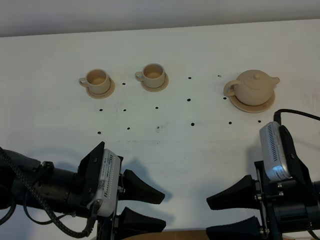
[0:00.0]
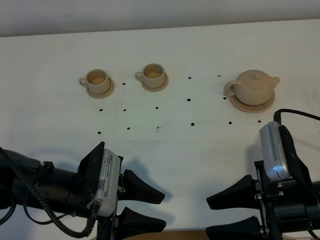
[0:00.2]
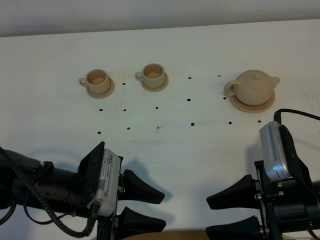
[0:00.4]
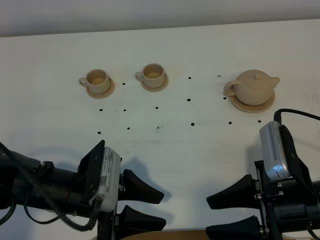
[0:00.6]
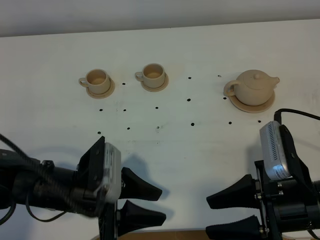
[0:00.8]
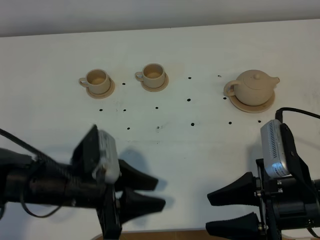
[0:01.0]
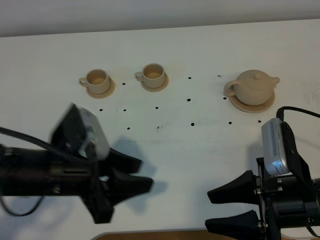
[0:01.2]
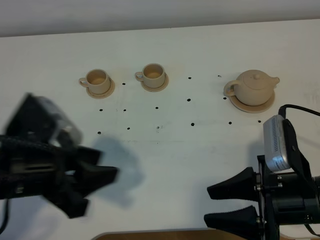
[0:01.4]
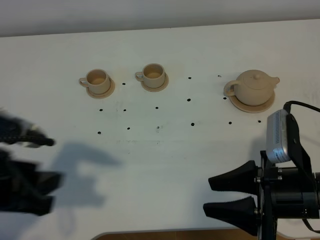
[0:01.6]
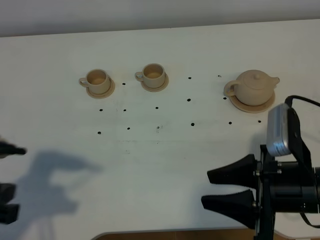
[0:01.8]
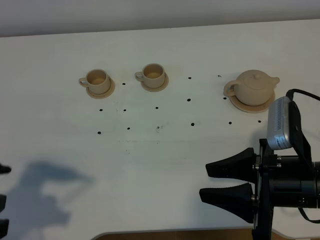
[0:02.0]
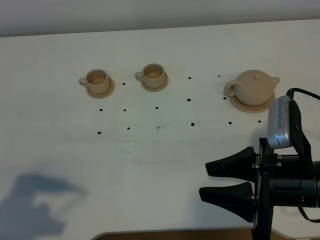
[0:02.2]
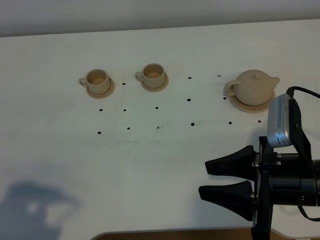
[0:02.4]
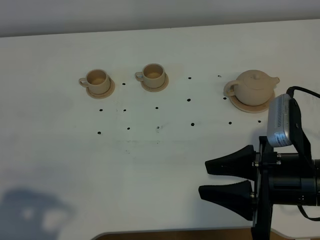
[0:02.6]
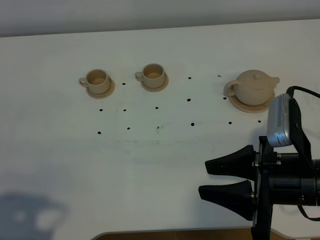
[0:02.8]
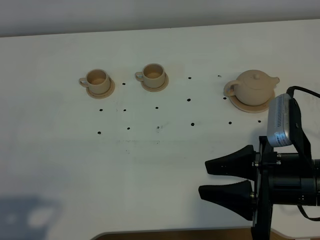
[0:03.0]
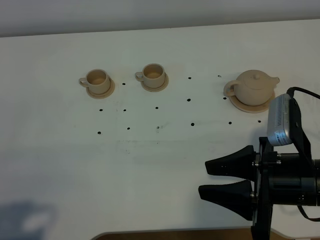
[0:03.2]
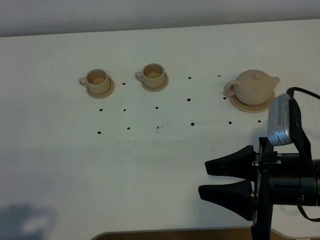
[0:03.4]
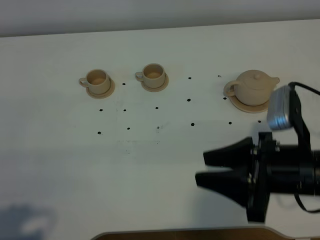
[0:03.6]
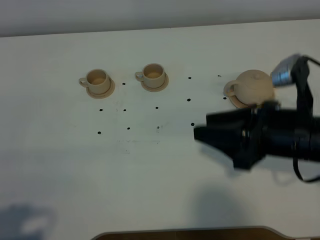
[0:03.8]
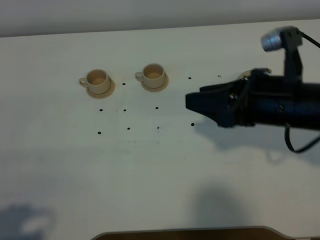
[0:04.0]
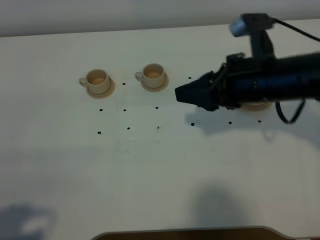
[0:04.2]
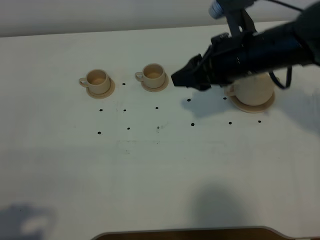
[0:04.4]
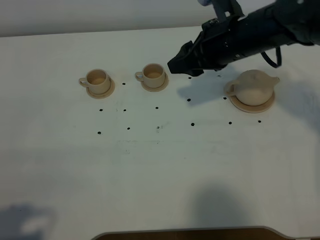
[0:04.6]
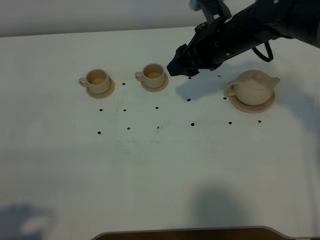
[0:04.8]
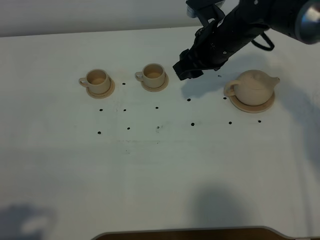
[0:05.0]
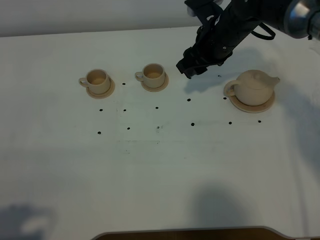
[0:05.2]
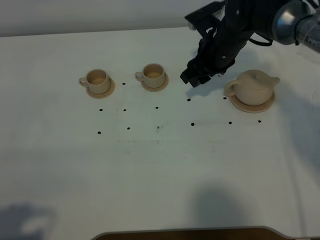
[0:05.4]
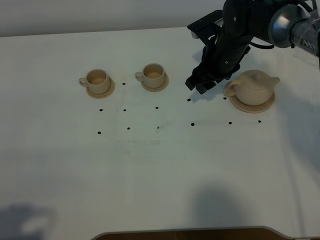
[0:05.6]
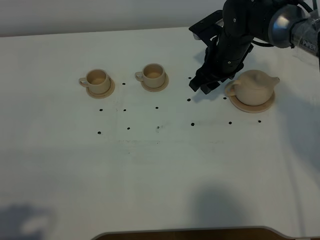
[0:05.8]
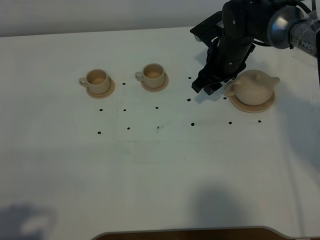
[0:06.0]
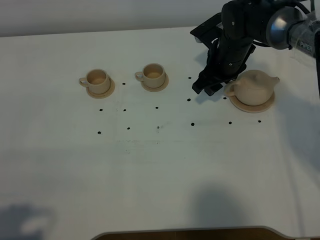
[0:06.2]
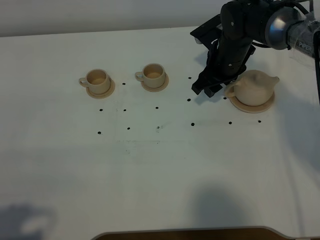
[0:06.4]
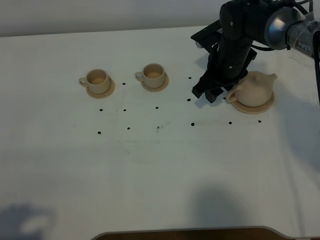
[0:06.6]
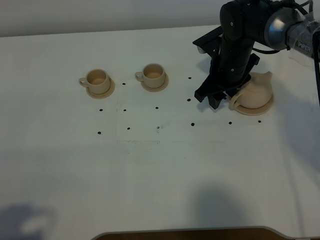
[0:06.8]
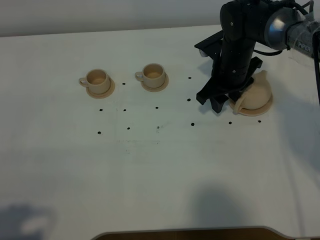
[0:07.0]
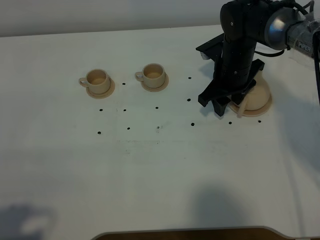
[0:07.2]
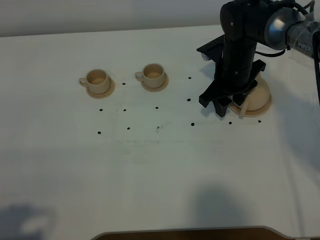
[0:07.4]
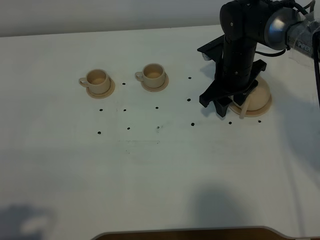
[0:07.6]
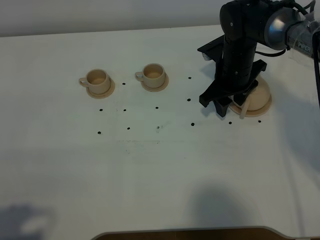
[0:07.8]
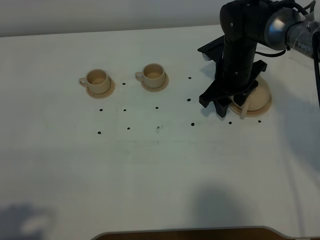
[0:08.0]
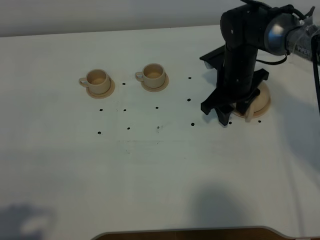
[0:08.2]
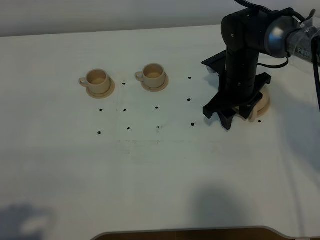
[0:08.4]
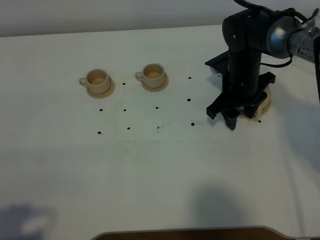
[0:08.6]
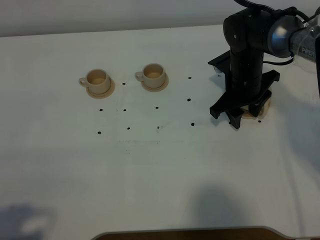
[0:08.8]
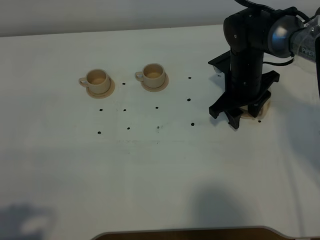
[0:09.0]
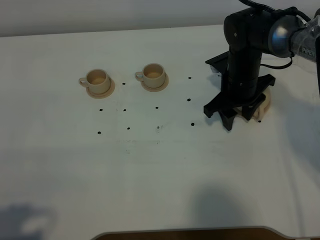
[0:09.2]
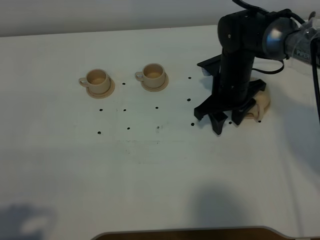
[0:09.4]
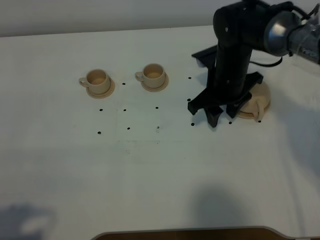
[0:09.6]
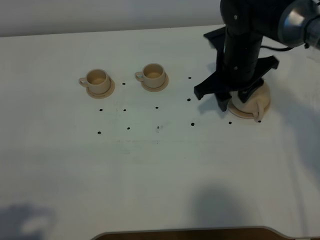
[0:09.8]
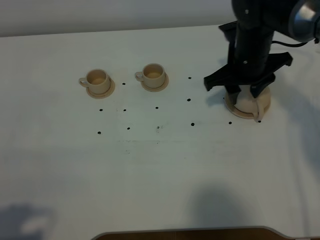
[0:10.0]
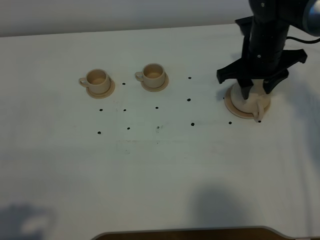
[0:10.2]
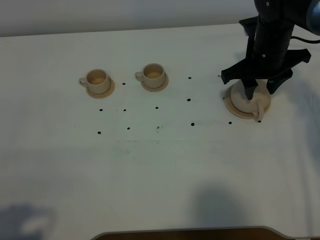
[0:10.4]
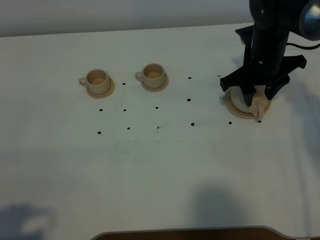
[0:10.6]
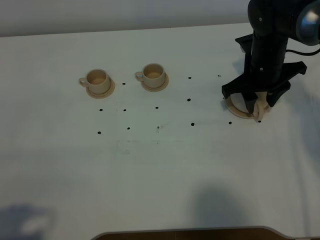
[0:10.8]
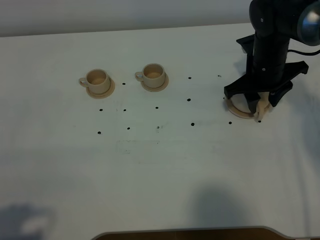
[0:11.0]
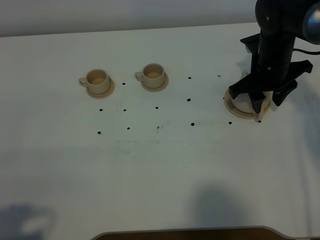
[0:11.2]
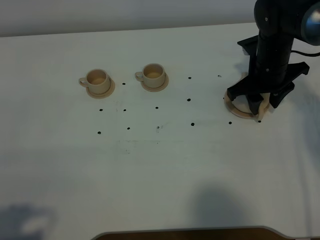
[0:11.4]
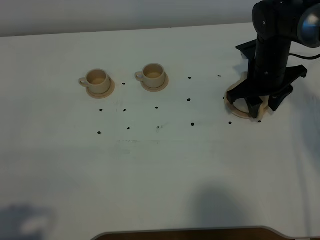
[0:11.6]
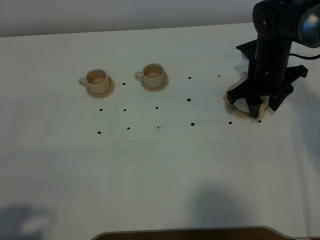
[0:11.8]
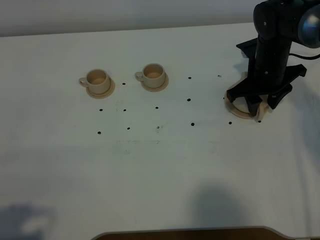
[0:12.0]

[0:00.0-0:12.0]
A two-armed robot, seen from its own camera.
Task of the whole recording: grasp the brown teapot and pour the tea into the two brown teacups one by one, put the brown teapot back in its original place.
0:00.0 to 0:01.6: The left gripper shifts roughly 15 cm upward and to the left.
0:01.6 to 0:03.0: The left gripper heads backward and to the left, covering roughly 15 cm.
0:03.0 to 0:04.4: The right gripper travels forward by about 20 cm.
0:04.4 to 0:06.0: The right gripper moves forward and downward, approximately 15 cm.
0:06.0 to 0:07.6: The grippers make only small movements.
0:07.6 to 0:09.0: The grippers move only a little.
0:09.0 to 0:10.4: The right gripper heads upward, covering some 5 cm.
0:10.4 to 0:12.0: The grippers move only a little.

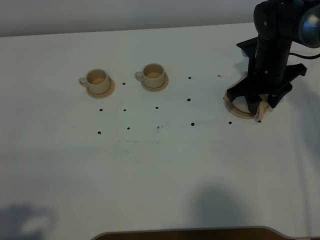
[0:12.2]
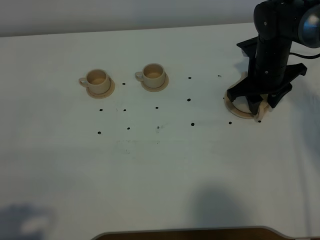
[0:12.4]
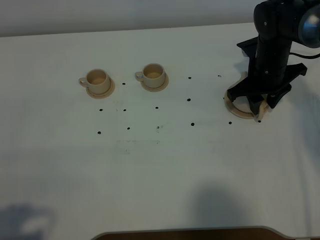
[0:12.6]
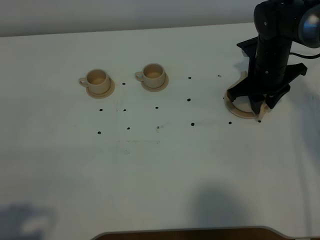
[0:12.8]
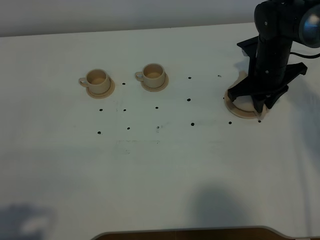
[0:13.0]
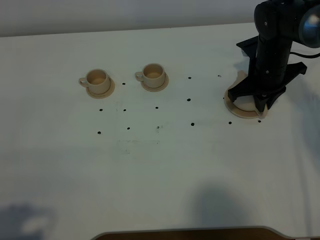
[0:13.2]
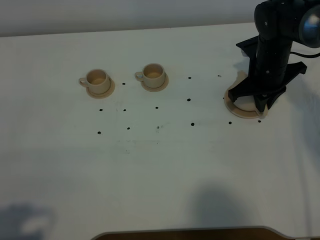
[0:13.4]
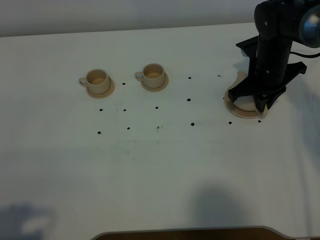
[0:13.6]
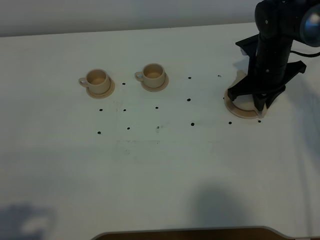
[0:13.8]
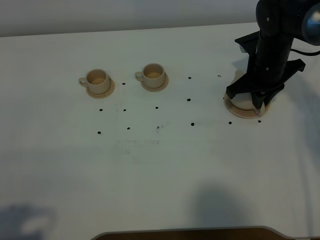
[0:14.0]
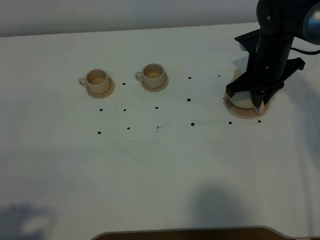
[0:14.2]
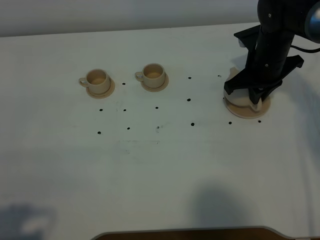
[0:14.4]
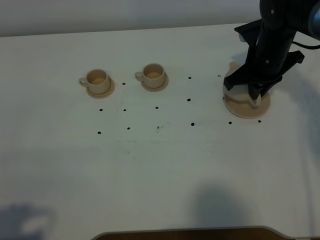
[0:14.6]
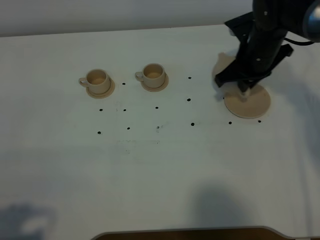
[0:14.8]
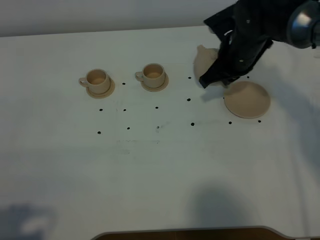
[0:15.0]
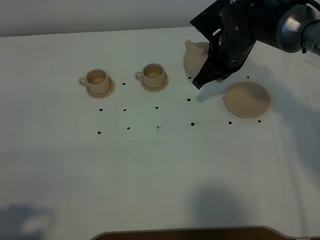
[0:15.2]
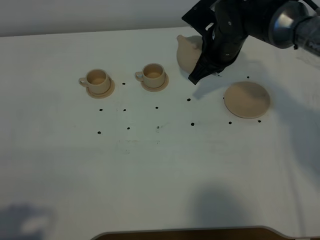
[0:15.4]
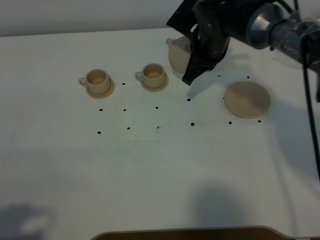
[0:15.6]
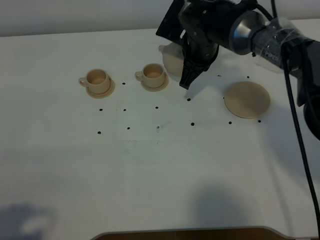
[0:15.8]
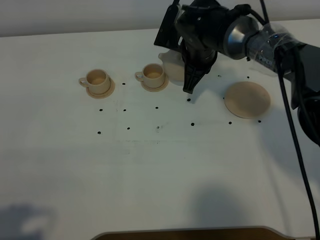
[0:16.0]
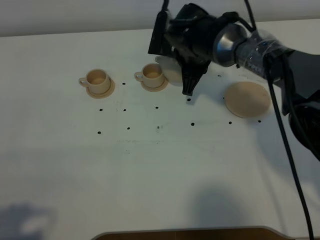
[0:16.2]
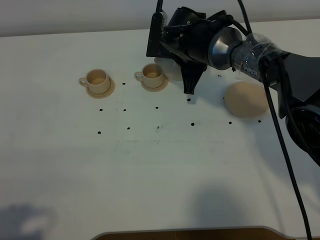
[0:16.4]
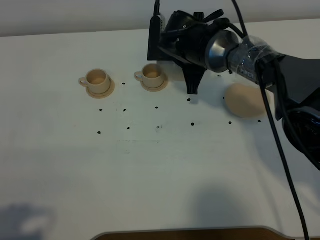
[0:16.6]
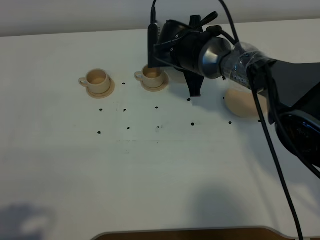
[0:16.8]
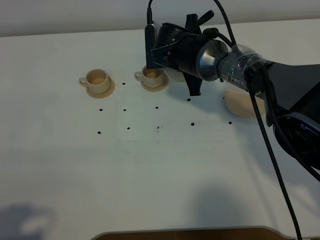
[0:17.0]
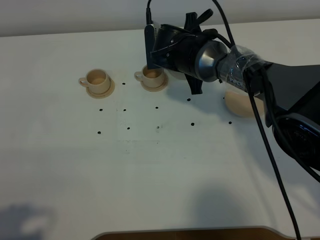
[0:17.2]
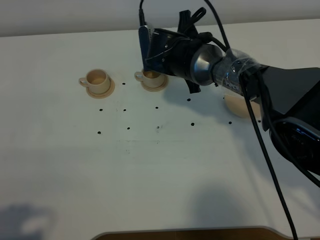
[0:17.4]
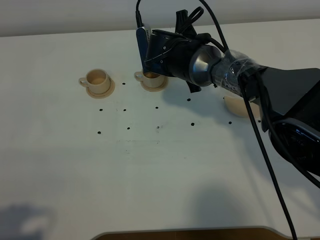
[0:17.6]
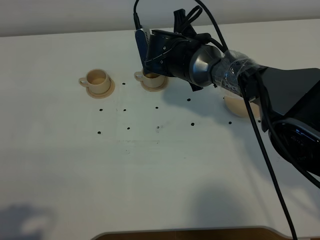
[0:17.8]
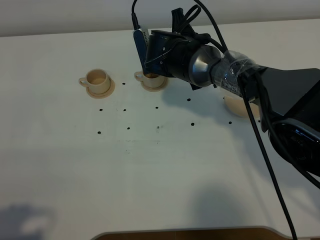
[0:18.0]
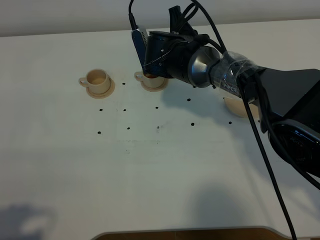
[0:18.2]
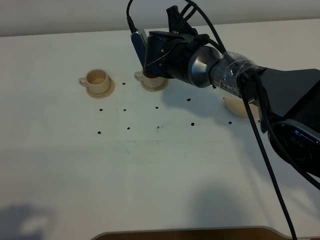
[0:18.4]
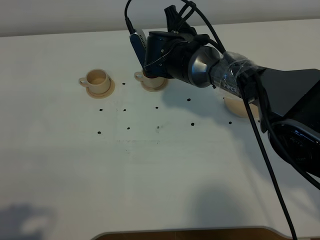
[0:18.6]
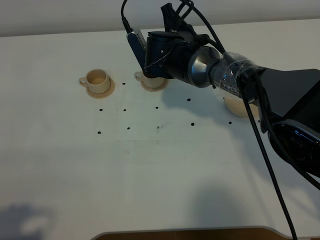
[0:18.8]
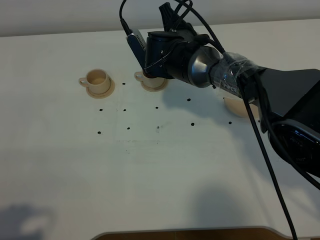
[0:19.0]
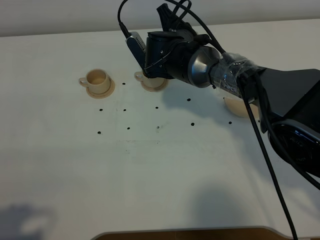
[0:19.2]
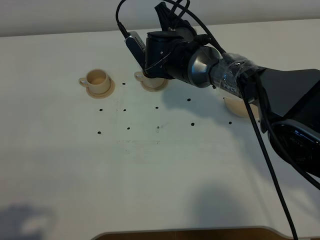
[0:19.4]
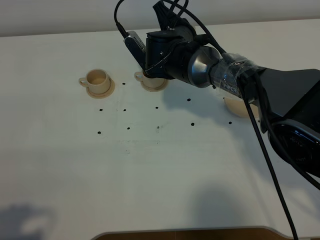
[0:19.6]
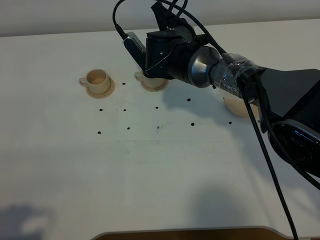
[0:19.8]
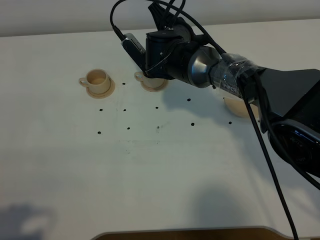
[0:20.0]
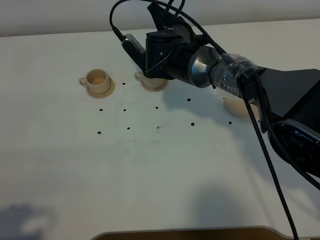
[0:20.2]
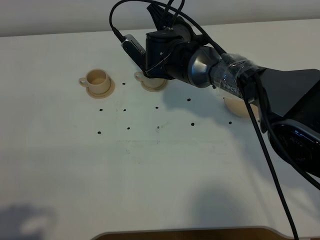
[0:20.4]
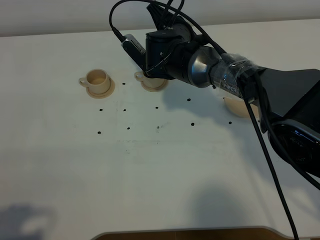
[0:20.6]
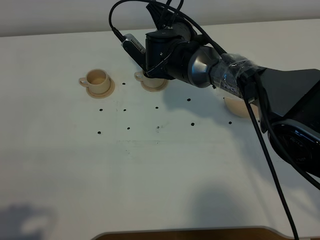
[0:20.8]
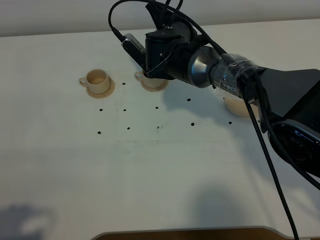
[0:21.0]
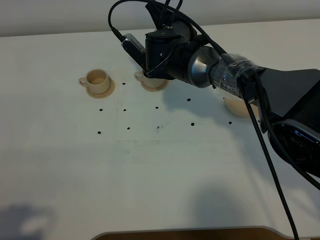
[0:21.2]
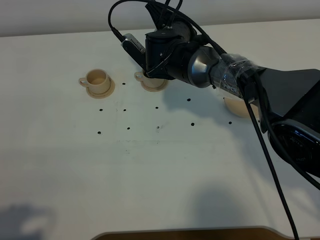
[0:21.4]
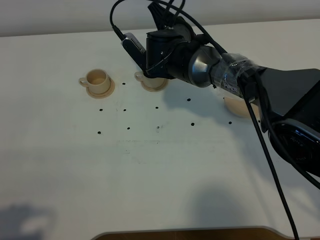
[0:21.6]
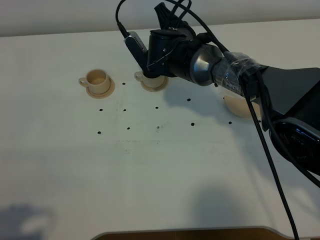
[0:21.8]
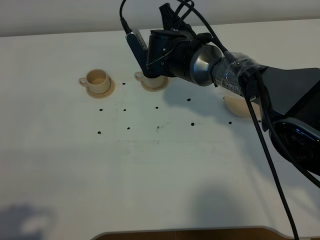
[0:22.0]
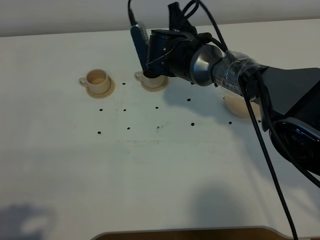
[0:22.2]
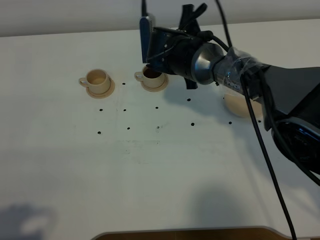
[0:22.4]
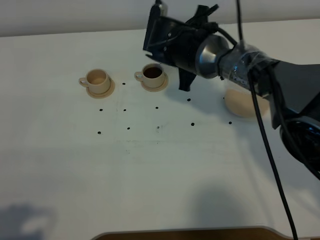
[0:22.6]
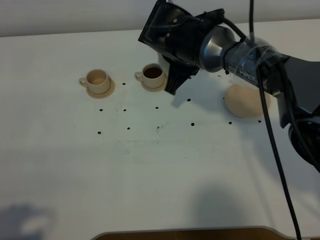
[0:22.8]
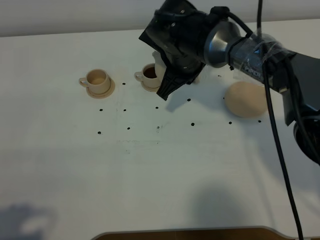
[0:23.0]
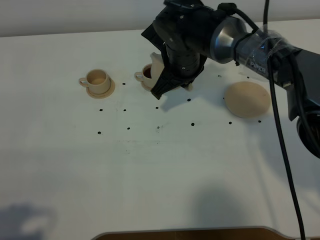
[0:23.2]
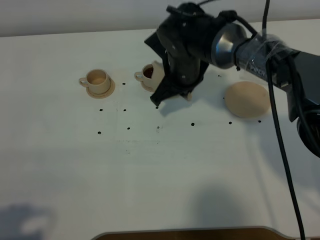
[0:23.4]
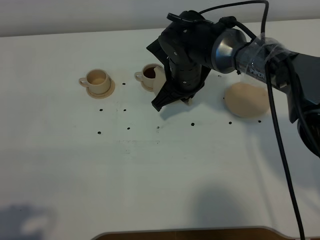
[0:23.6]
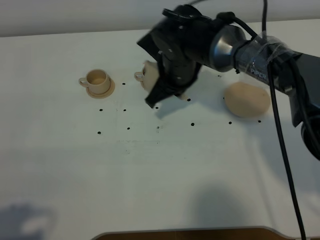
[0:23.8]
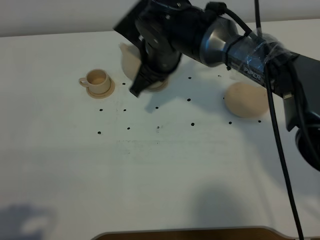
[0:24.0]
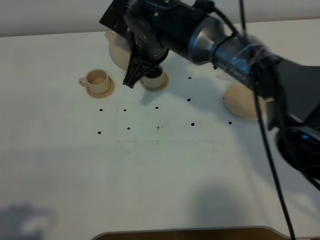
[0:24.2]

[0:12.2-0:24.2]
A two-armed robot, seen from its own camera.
Task of the whole recording: grasp the brown teapot and pour the tea into the two brown teacups one by one, put the brown teapot back in its original place.
Step, 0:12.2 to 0:14.2: Pick up the teapot with the right gripper.
0:12.2 to 0:13.8: The right gripper closes its fingers.
0:13.8 to 0:15.2: The right gripper shifts roughly 5 cm to the left.
0:15.2 to 0:16.6: The right gripper is displaced to the left by approximately 5 cm.
0:18.2 to 0:19.8: There are only small adjustments of the grippers.
0:19.8 to 0:21.2: The grippers move only a little.
0:22.6 to 0:24.2: The right gripper is displaced to the left by roughly 5 cm.
